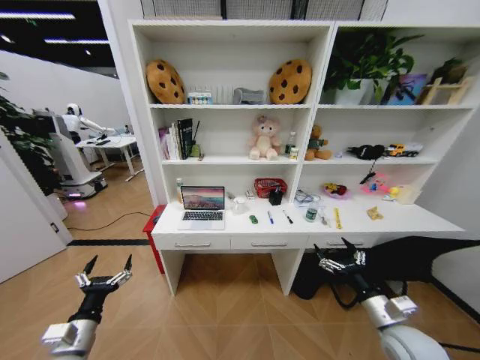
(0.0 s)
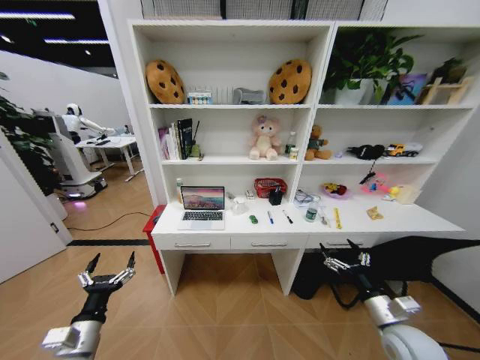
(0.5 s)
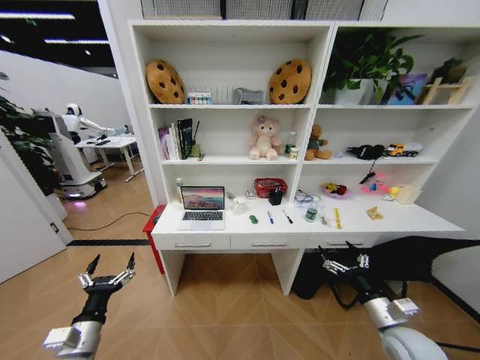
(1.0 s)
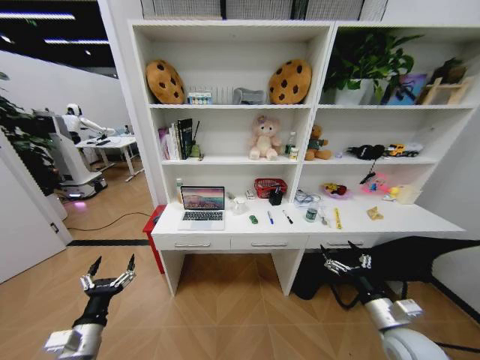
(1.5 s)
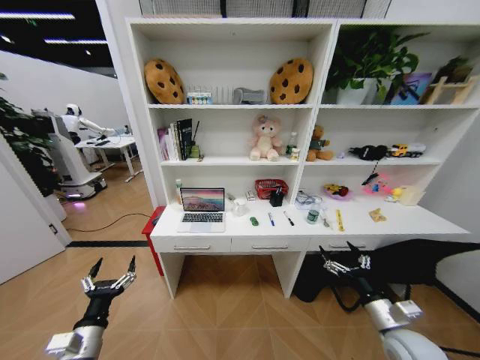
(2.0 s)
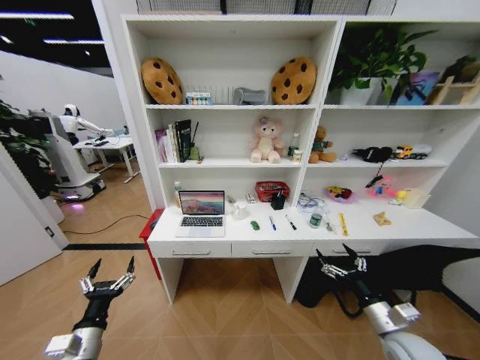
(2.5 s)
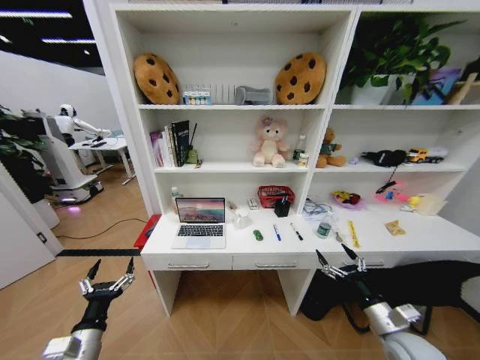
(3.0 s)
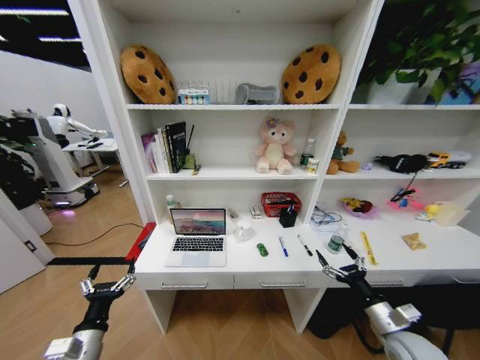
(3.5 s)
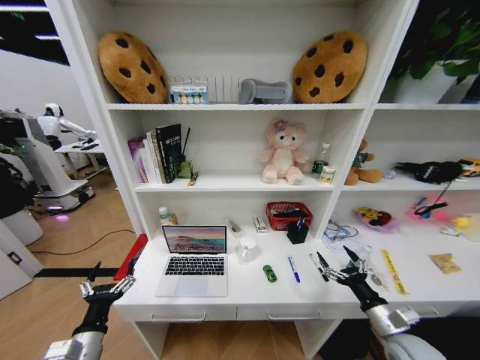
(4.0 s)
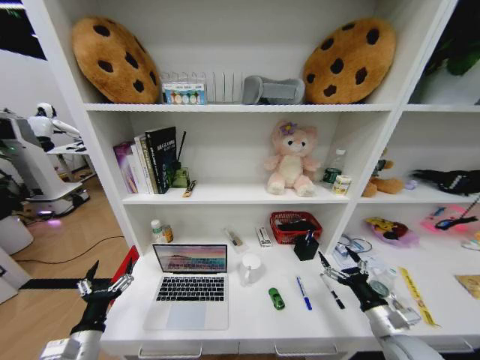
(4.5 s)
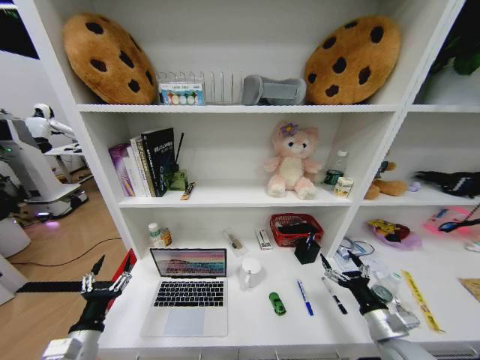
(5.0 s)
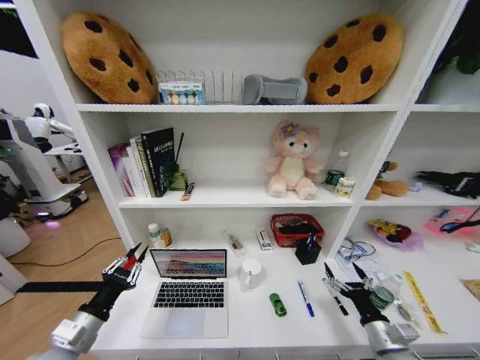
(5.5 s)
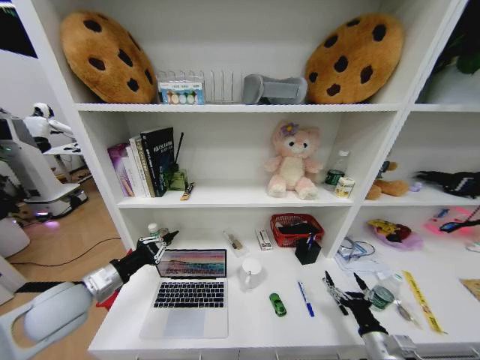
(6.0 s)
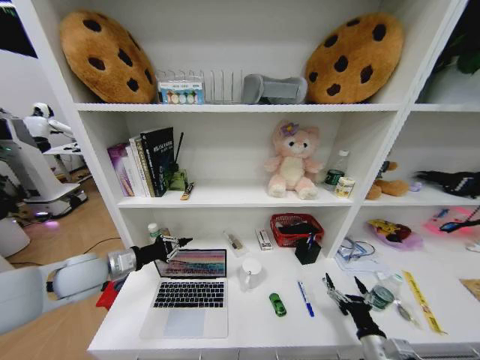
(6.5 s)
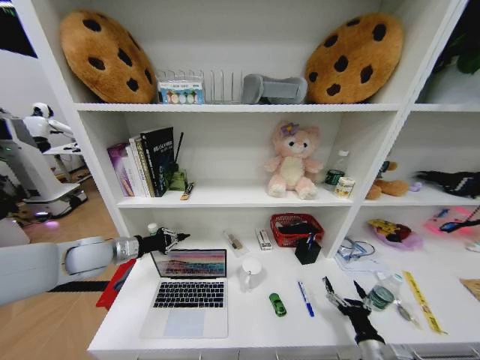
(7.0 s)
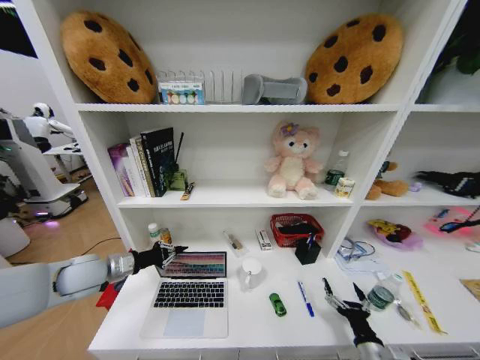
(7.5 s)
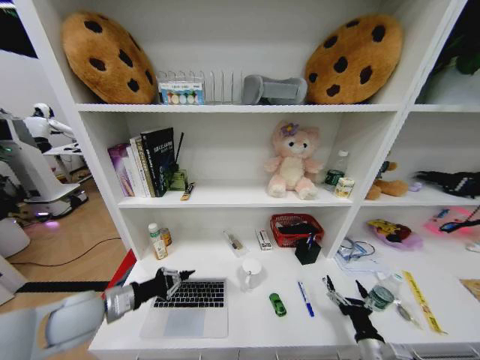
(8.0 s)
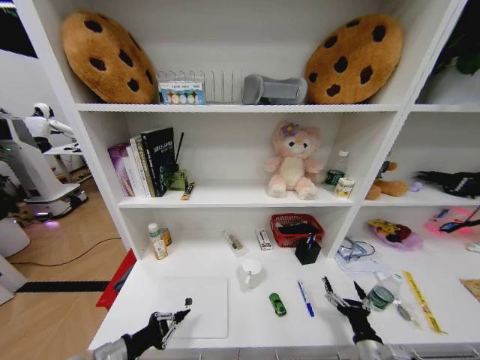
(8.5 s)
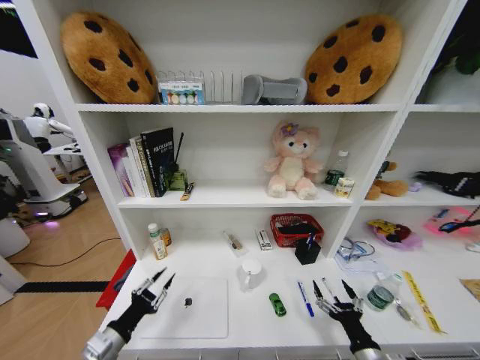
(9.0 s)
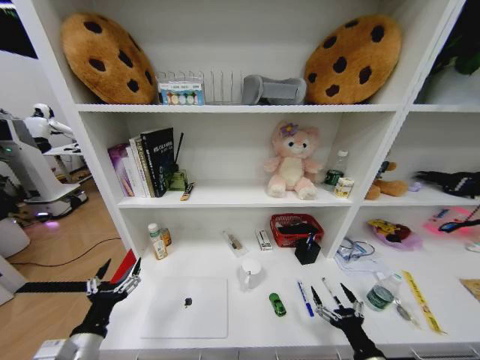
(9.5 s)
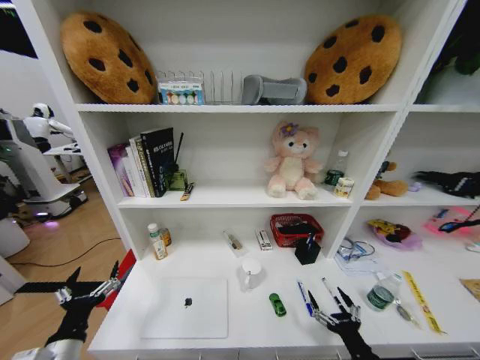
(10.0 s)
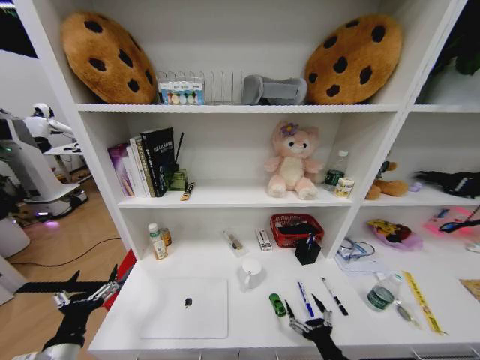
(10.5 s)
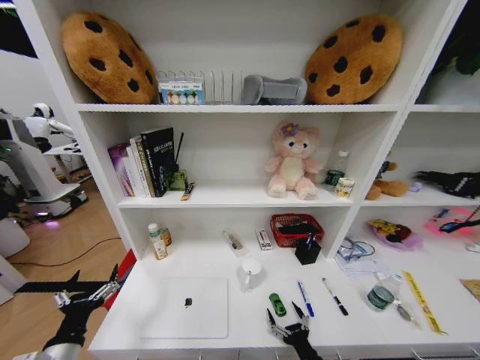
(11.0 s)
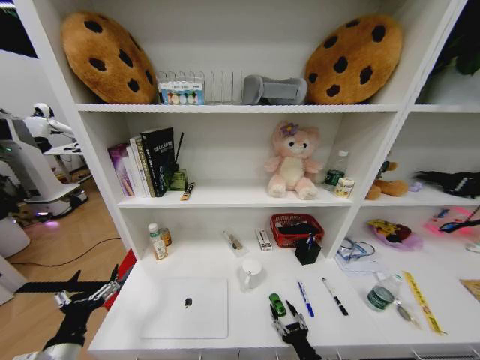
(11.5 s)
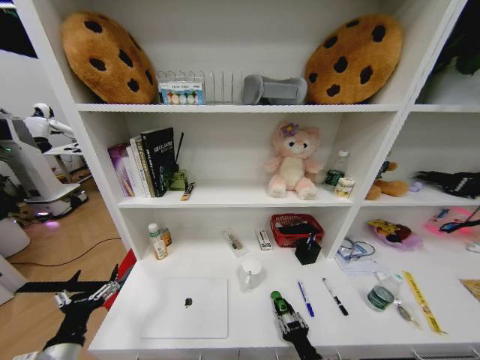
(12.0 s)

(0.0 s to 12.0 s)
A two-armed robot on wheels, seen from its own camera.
Task of the whole recording: Organize the objects on the table.
4.0 s - 6.0 s: The right gripper shifts some 5 cm downward; the left gripper travels upward and forward by about 15 cm, and closes its fingers.
6.0 s - 8.0 s: The left gripper moves about 10 cm forward and comes back.
8.0 s - 10.0 s: The right gripper changes place by about 5 cm, while the left gripper shifts approximately 15 cm backward, and opens its fingers.
10.0 s - 12.0 s: The right gripper is displaced to the left and downward by about 10 cm, and closes.

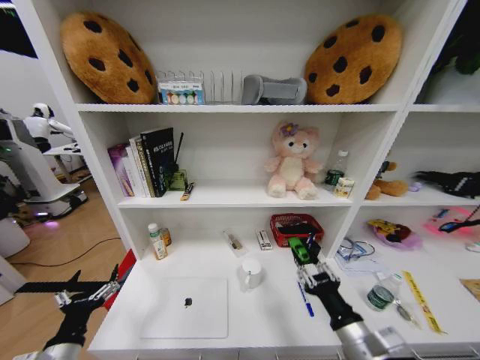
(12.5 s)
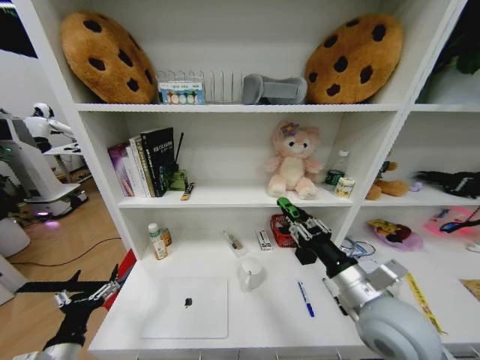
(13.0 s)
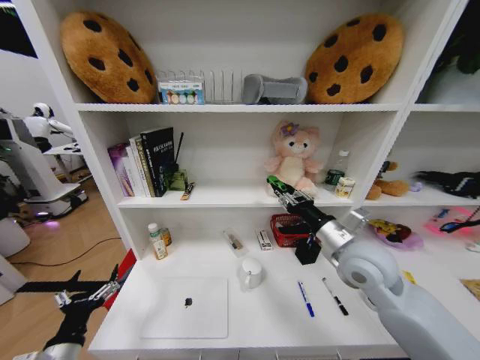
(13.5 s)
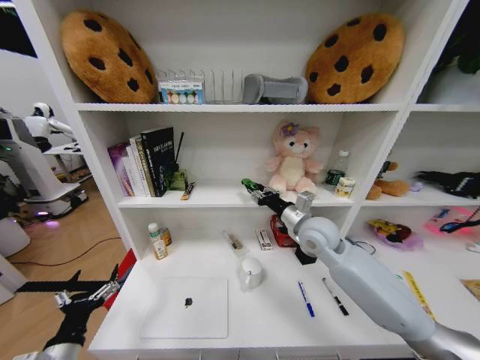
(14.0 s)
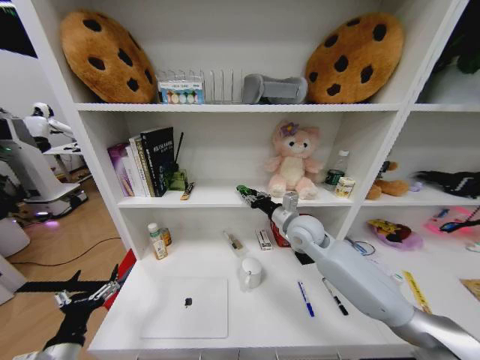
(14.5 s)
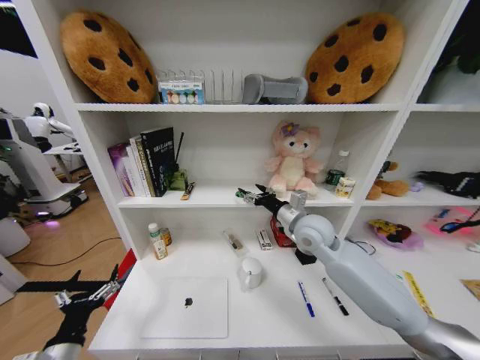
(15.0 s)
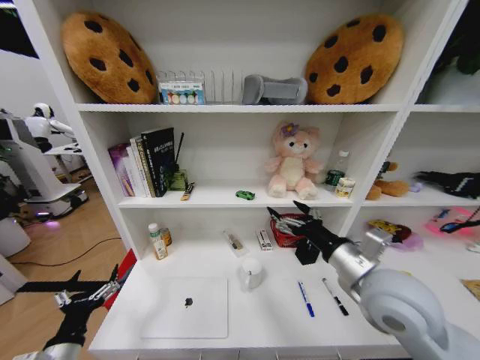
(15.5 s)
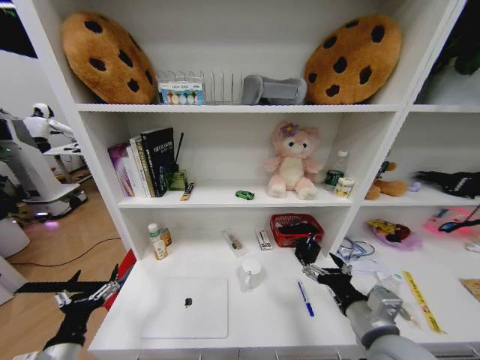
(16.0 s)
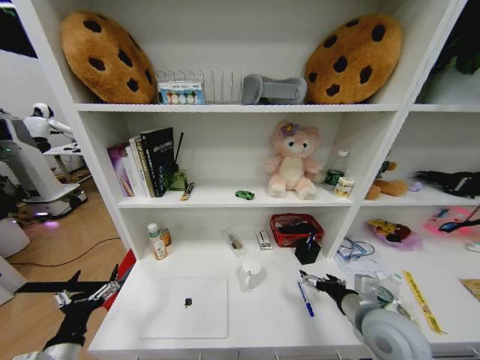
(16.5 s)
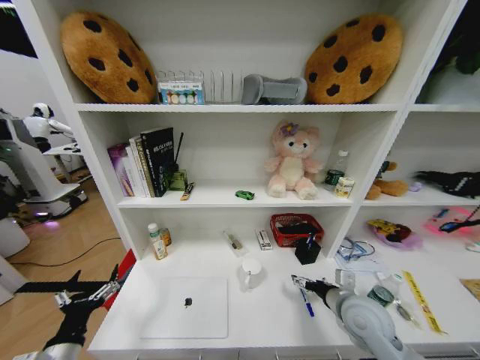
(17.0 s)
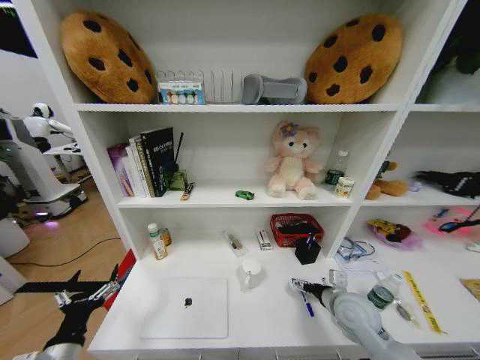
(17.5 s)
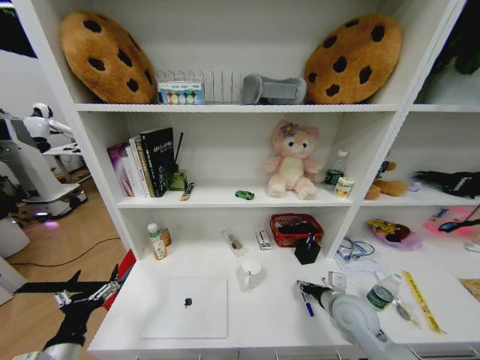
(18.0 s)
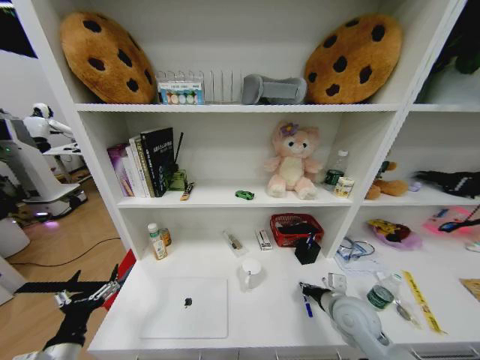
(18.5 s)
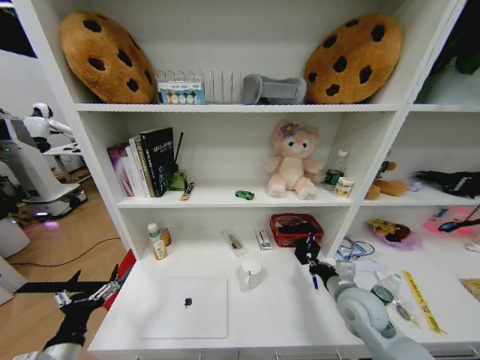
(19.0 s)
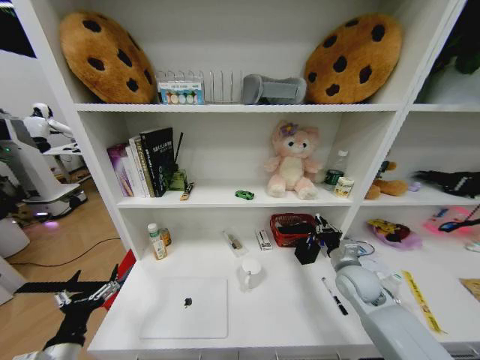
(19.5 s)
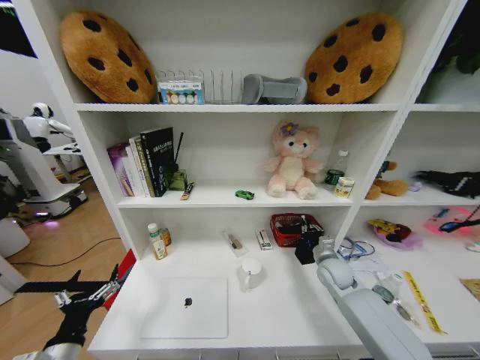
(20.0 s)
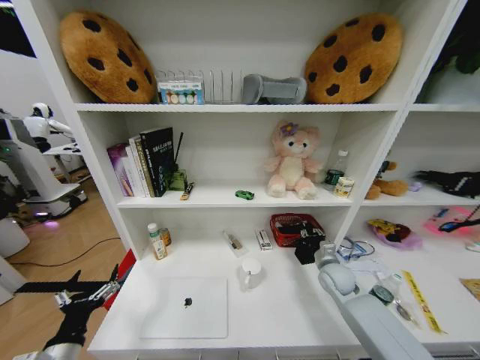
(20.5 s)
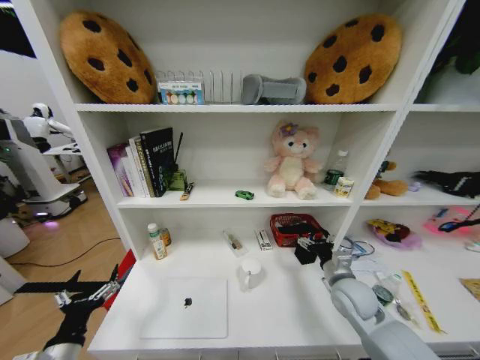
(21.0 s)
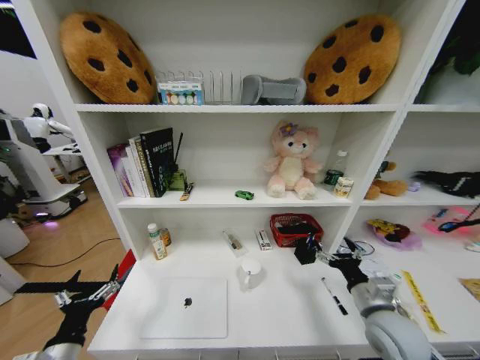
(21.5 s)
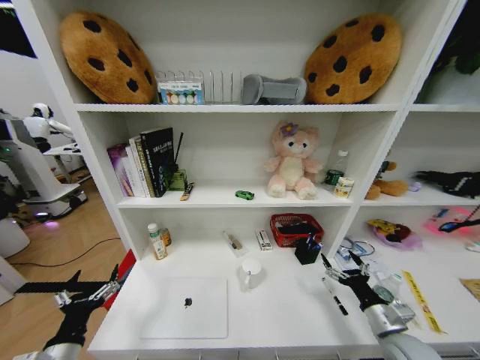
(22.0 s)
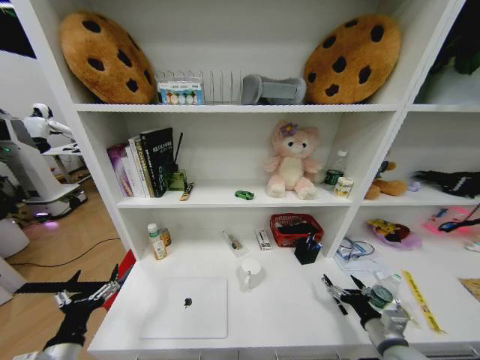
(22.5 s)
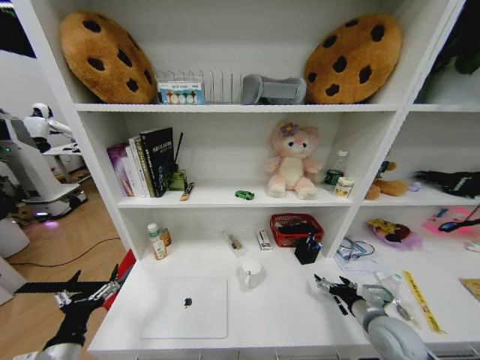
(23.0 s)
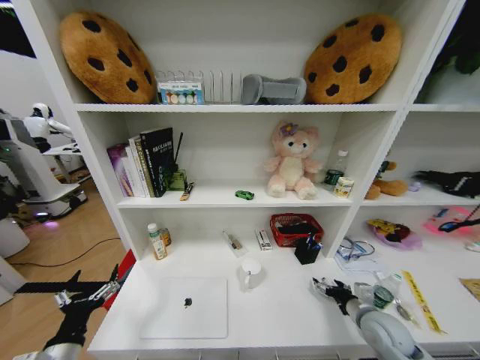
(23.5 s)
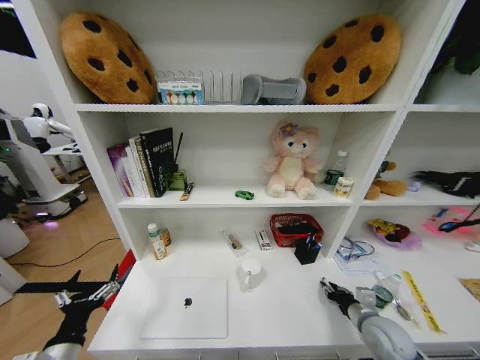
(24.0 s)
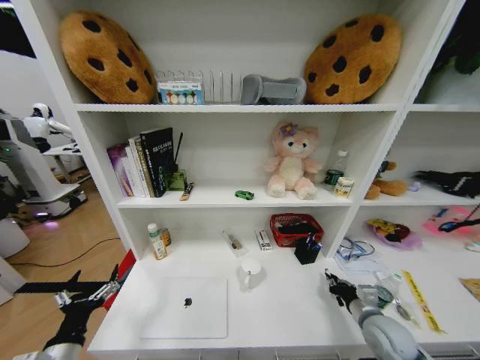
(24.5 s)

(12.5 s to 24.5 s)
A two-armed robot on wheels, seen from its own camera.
Task of the whole recording: Organize the objects on the table.
12.5 s - 14.5 s: The right gripper goes roughly 30 cm forward.
14.5 s - 16.5 s: The right gripper is displaced backward and to the right by approximately 25 cm, and opens up.
16.5 s - 18.5 s: The right gripper moves downward and forward, some 10 cm, and closes its fingers.
18.5 s - 20.5 s: The right gripper goes approximately 10 cm forward.
20.5 s - 22.5 s: The right gripper is displaced backward by about 20 cm, and opens.
22.5 s - 24.5 s: The right gripper goes about 5 cm forward, and closes its fingers.

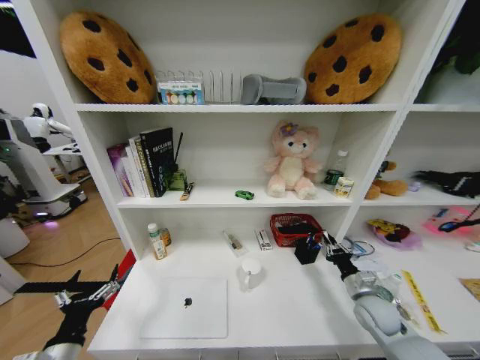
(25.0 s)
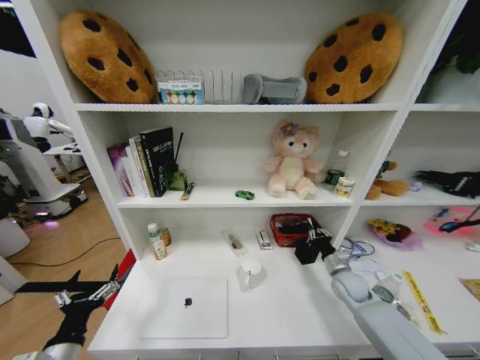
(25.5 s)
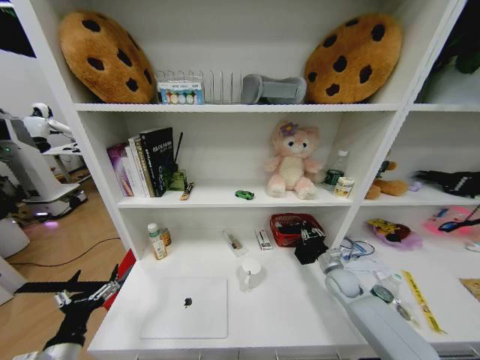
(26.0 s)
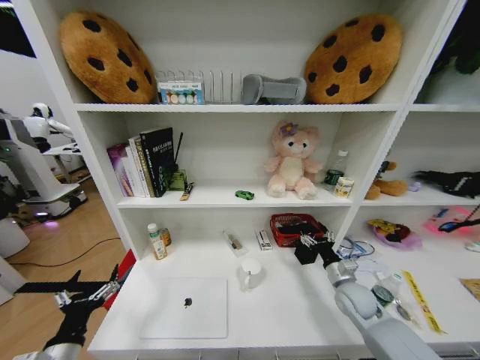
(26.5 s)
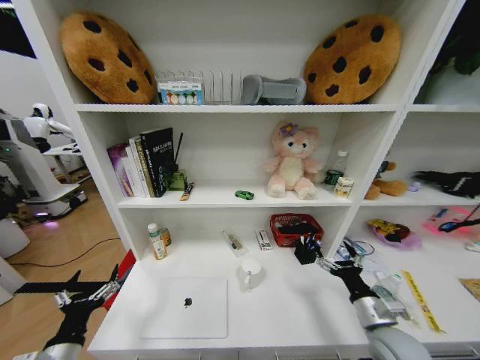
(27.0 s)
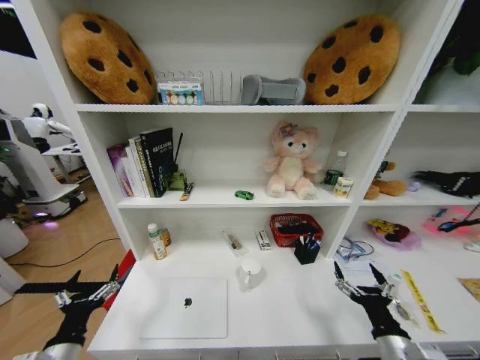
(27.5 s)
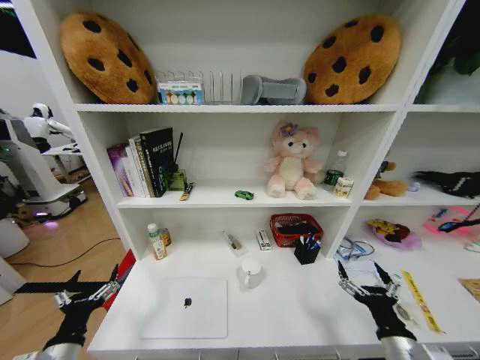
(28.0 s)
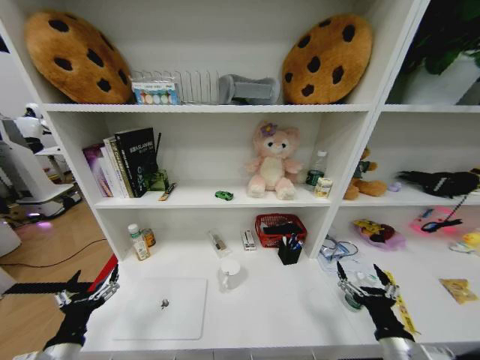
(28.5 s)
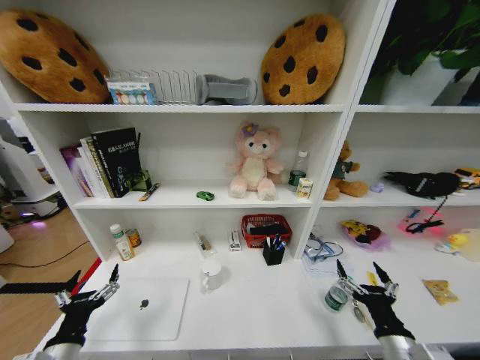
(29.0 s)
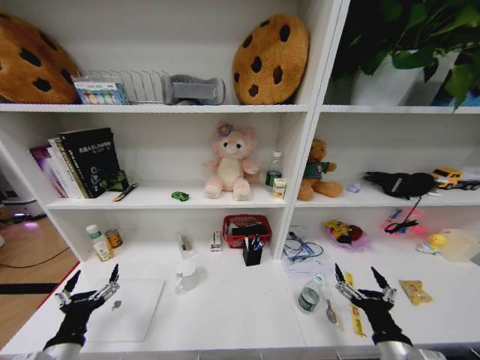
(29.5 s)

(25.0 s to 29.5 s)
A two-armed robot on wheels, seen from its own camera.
Task of the whole recording: Organize the objects on the table.
25.0 s - 27.0 s: The right gripper goes roughly 10 cm backward and upward, and opens.
27.0 s - 29.5 s: The right gripper travels backward by some 10 cm.
